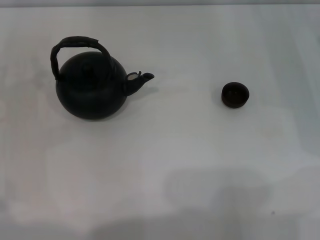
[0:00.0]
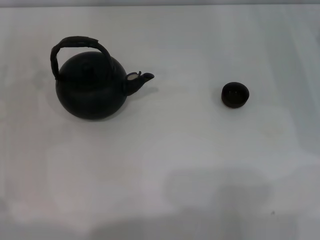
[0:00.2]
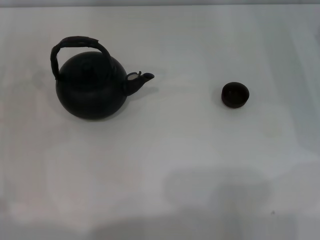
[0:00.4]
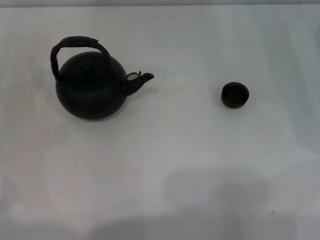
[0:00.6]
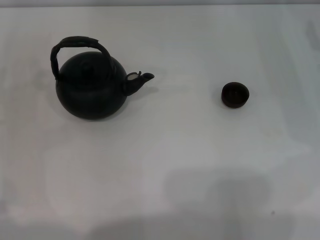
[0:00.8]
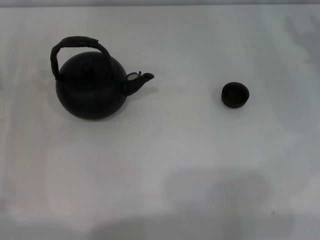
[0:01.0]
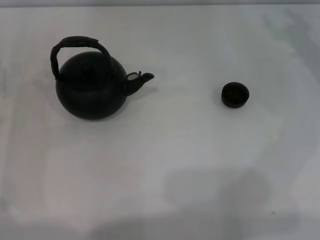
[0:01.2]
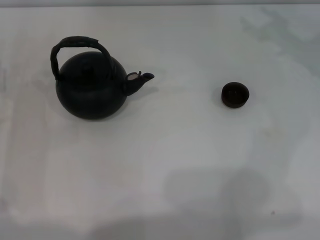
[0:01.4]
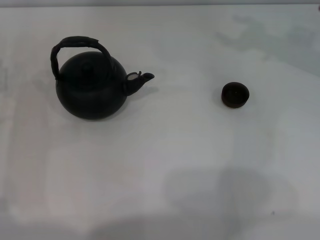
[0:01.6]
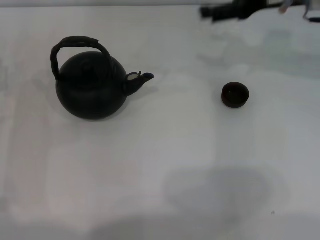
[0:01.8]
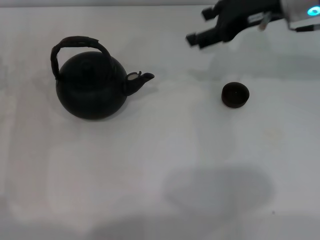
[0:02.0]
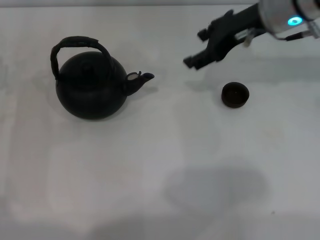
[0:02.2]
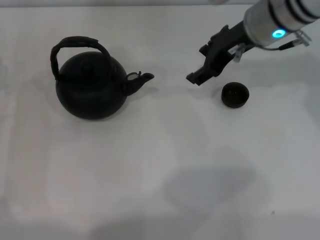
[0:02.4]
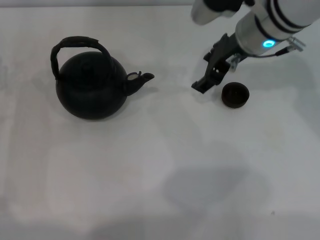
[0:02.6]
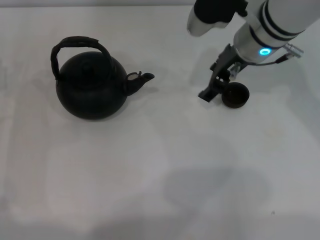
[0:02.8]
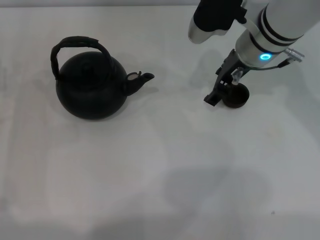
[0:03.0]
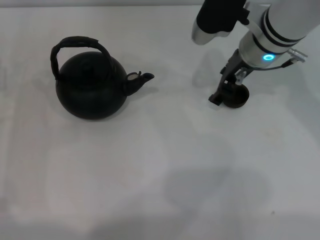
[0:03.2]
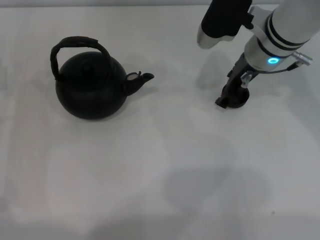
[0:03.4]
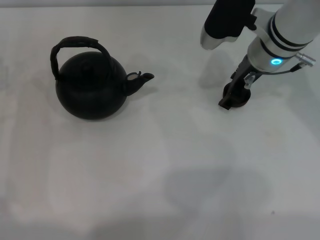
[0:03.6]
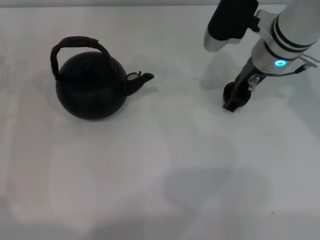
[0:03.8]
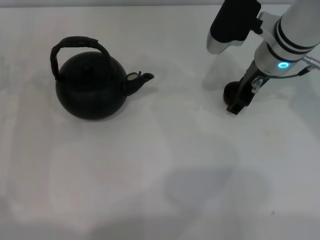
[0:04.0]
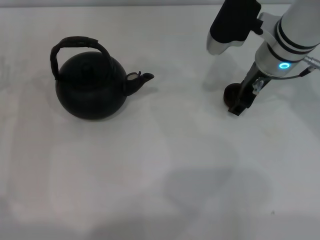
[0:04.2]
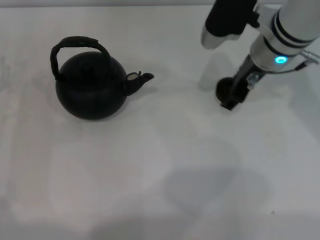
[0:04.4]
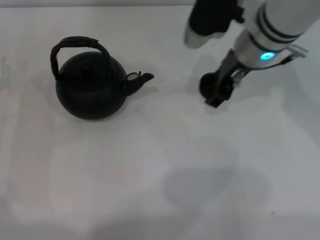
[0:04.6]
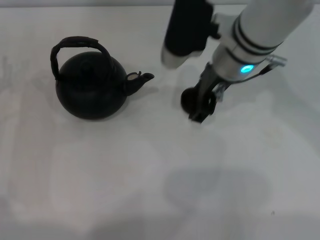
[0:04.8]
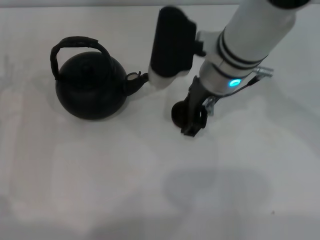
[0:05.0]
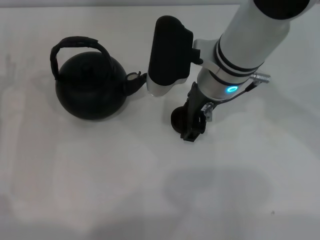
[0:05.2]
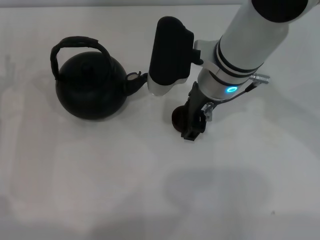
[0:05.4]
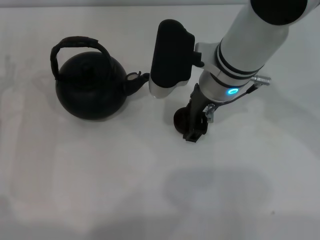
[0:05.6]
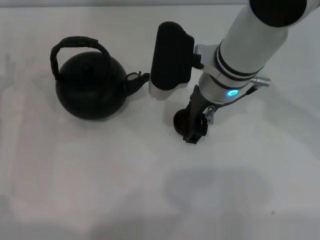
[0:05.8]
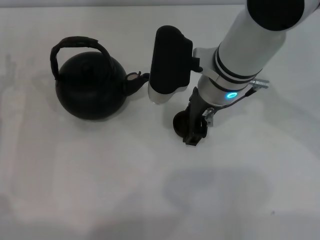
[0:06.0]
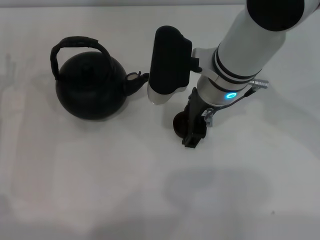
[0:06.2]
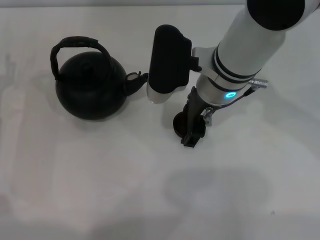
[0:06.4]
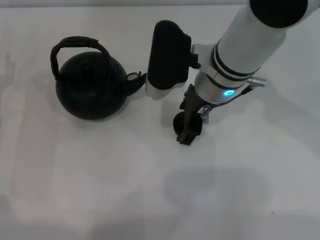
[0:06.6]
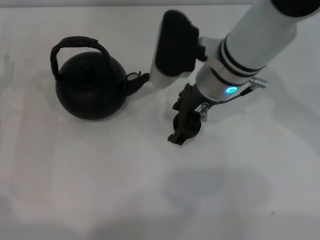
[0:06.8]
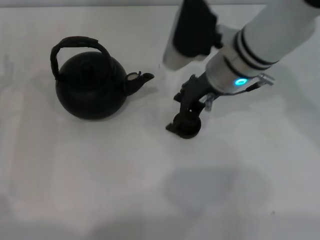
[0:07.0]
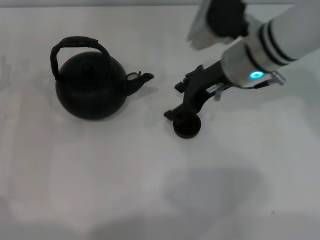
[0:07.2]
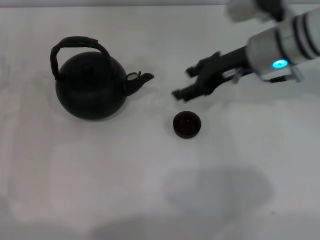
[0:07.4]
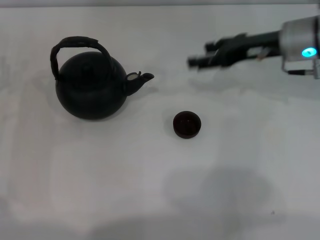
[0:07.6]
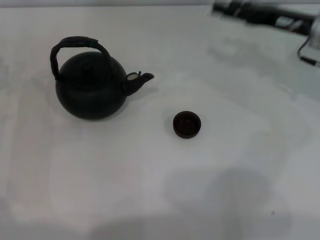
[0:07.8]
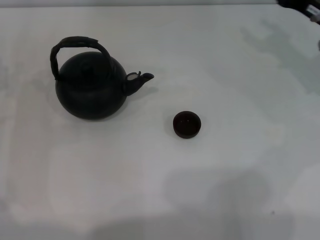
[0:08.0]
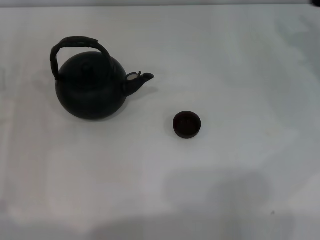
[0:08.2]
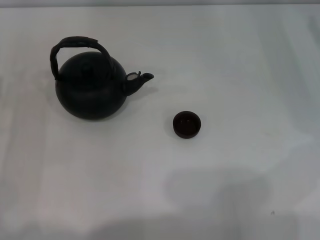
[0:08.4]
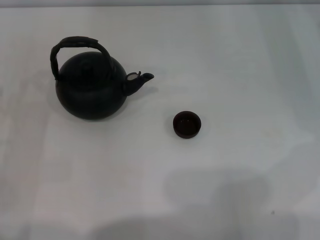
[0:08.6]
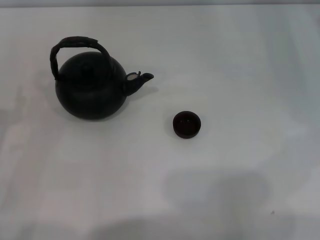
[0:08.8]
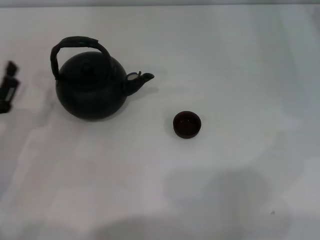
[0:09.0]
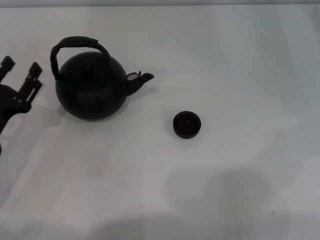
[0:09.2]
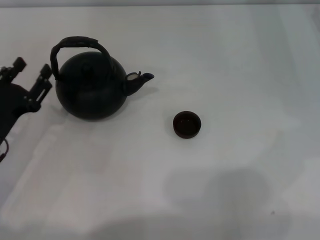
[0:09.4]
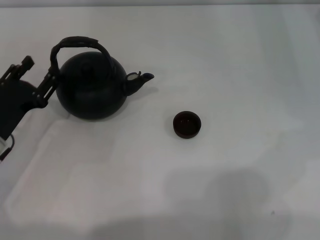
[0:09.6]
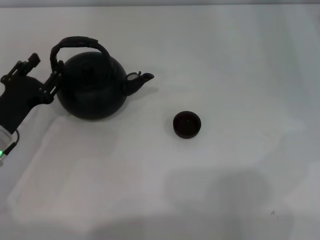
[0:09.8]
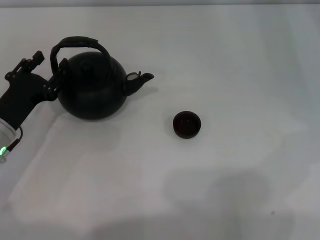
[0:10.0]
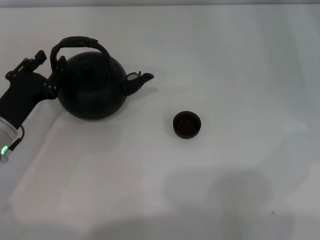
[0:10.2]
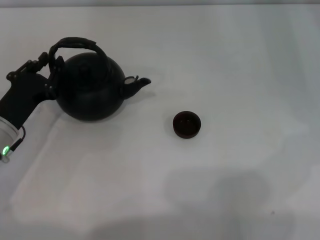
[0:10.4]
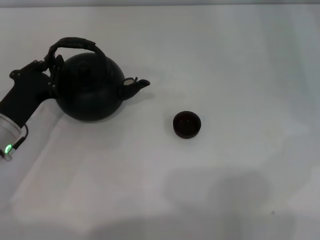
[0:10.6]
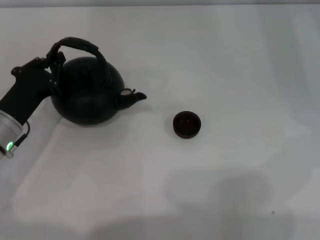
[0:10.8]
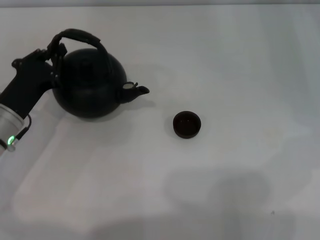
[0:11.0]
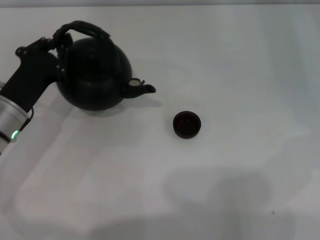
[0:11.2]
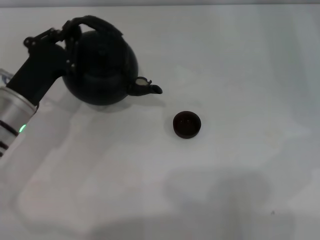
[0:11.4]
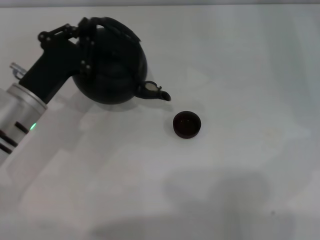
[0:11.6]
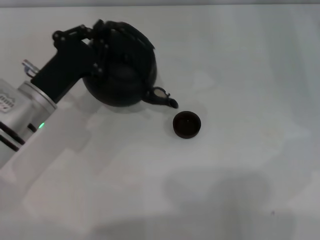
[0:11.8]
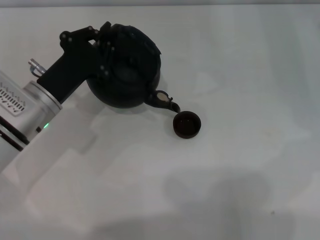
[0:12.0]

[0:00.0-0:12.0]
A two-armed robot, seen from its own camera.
Task of the whole recording: Grasp the handle of the teapot with one hand and pour tea into the teacup.
Step, 0.0 to 4.4 s: Pick up the teacup with the right gripper.
Step, 4.6 to 7.2 s: Place the teacup in the center of view with the right gripper.
Step, 7.4 to 11.2 s: Pick up the teapot with the left gripper.
1.6 to 3.0 s: The right gripper is displaced to the left by about 10 cm.
3.0 to 4.4 s: The grippers make only small movements.
4.4 to 6.0 s: The right gripper moves to the left, some 5 cm.
6.0 to 7.6 s: The right gripper heads to the right, covering about 15 cm.
7.6 to 9.0 s: The left gripper moves backward, some 5 cm. Meanwhile the right gripper is displaced to the right by some 15 cm.
9.0 to 10.4 s: The left gripper is displaced forward by approximately 5 cm.
10.4 to 12.0 s: The left gripper travels to the right by approximately 5 cm, and closes up.

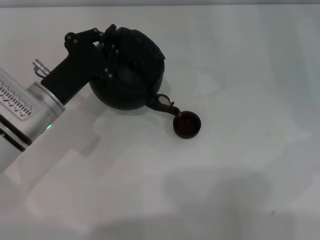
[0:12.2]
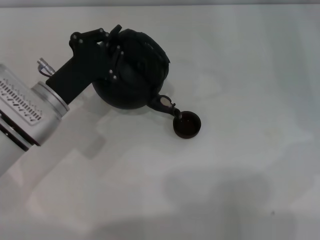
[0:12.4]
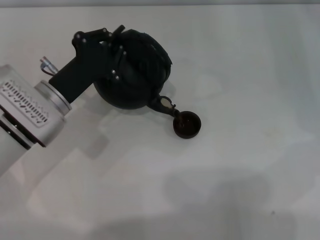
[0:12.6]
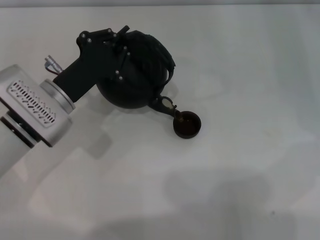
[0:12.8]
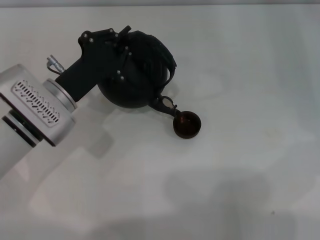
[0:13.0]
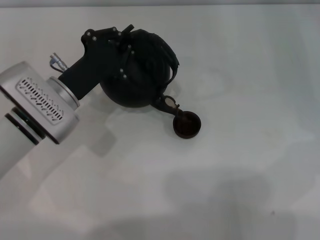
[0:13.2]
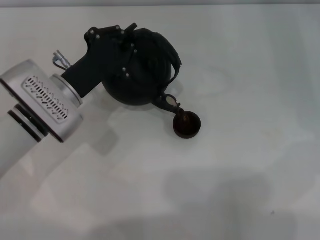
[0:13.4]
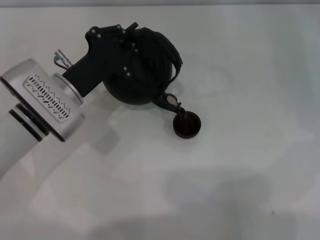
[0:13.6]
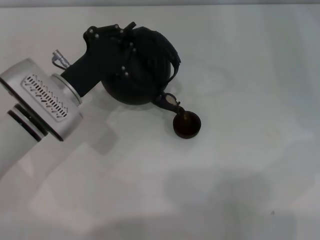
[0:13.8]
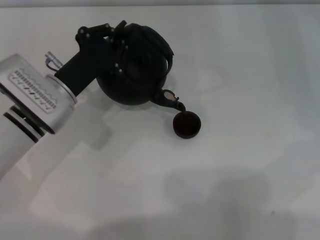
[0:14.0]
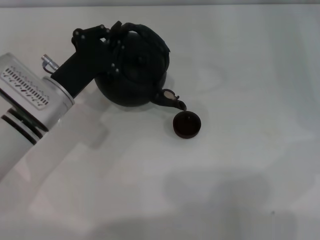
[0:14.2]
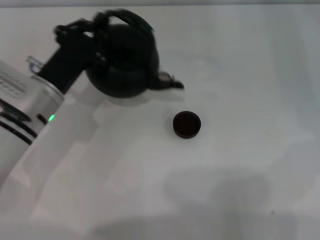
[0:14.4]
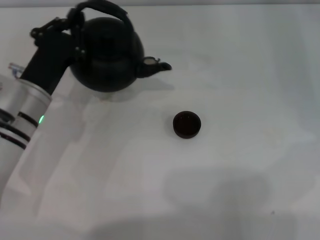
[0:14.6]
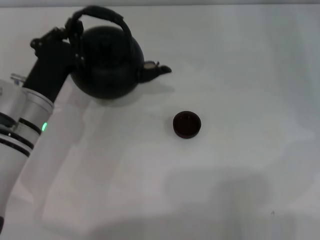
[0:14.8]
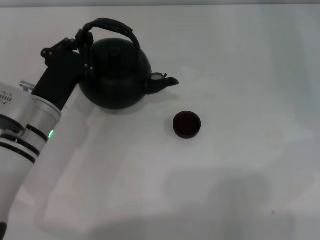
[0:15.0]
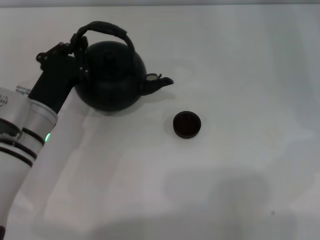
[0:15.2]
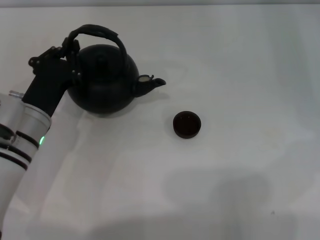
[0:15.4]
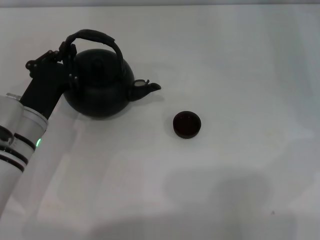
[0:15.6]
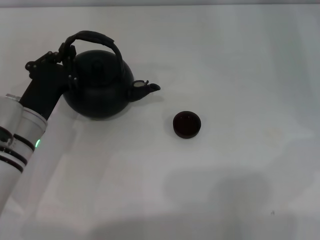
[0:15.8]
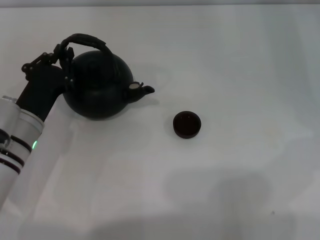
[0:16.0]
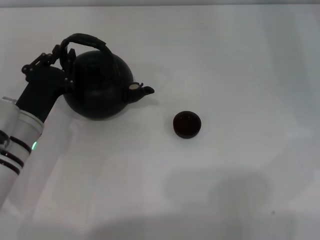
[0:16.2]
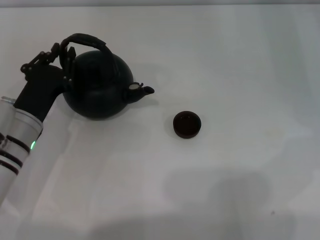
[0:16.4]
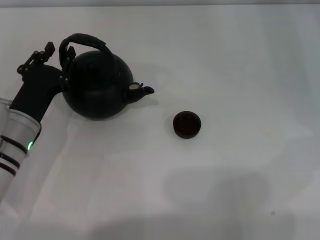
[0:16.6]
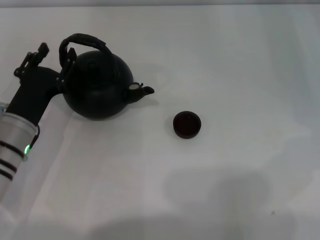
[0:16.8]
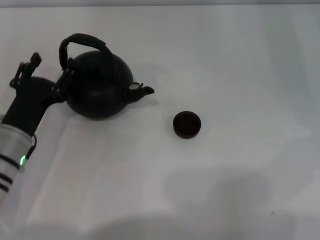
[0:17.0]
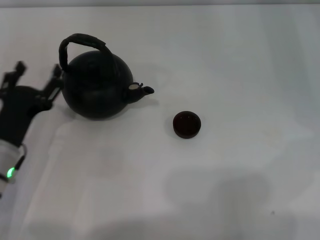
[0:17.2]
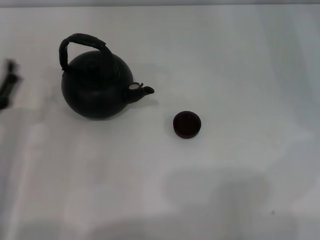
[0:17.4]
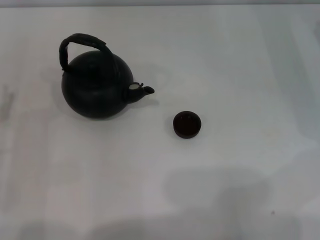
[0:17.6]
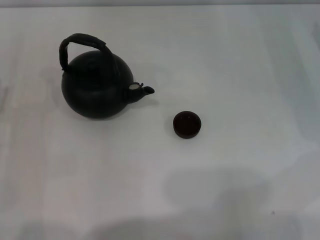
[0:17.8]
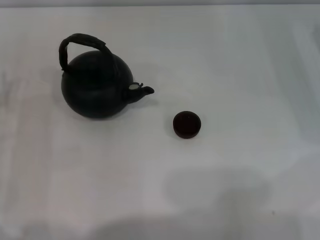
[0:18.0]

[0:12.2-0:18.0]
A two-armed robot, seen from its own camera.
Task of the whole recording: Grasp the handle of the teapot with one hand and pour tea into the teacup.
Step, 12.2 to 14.2 s: Pour tea into the teacup with the left gripper.
Step, 14.4 to 17.0 s: Put down the teapot with the left gripper.
12.2 to 13.6 s: The grippers stay close to where they were, moving slightly.
15.0 to 16.6 s: The grippers stay close to where they were, moving slightly.
16.6 to 18.0 s: The left gripper is displaced to the left by approximately 10 cm, and opens.

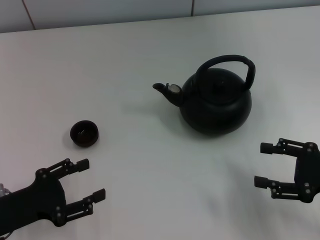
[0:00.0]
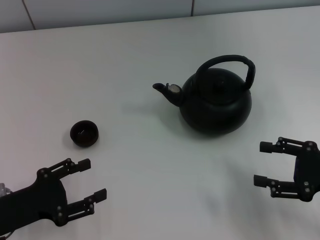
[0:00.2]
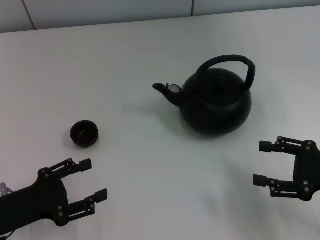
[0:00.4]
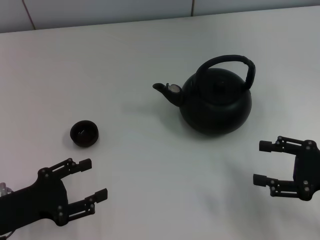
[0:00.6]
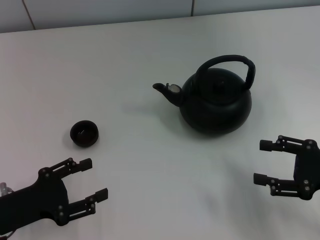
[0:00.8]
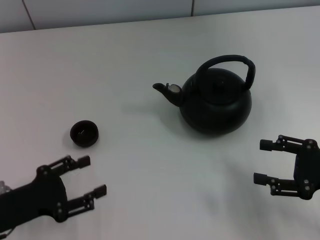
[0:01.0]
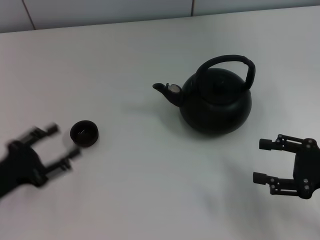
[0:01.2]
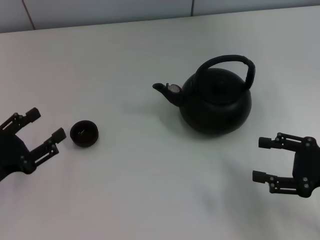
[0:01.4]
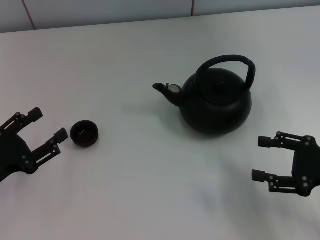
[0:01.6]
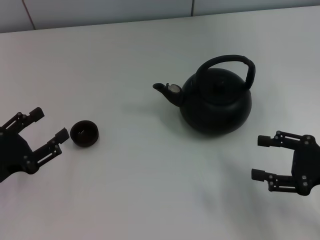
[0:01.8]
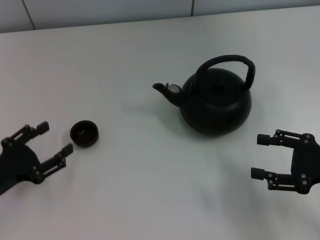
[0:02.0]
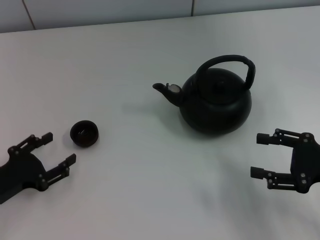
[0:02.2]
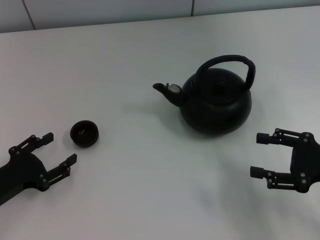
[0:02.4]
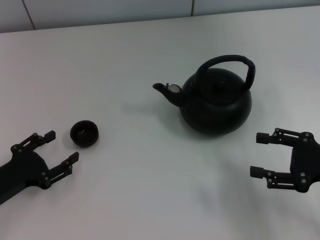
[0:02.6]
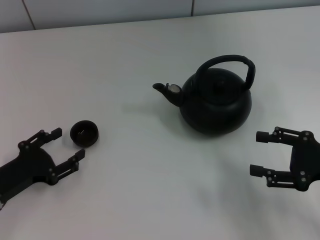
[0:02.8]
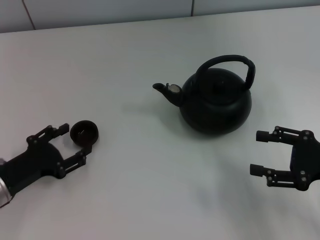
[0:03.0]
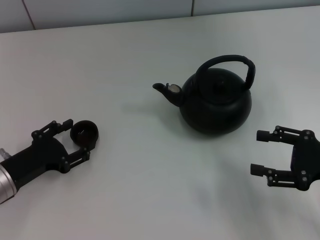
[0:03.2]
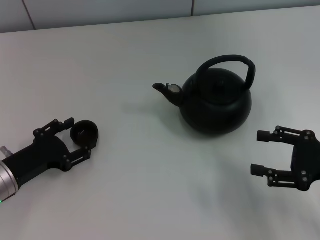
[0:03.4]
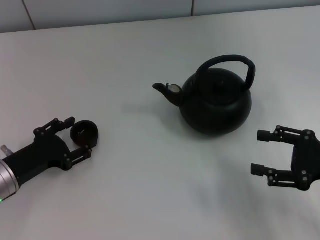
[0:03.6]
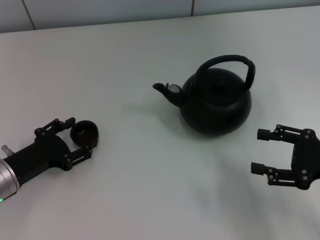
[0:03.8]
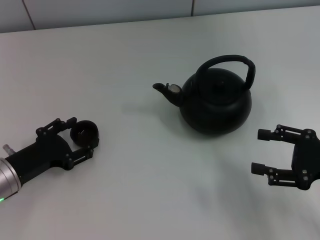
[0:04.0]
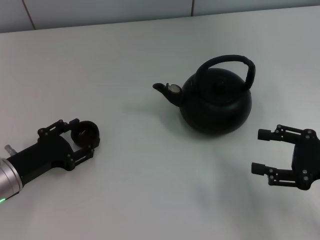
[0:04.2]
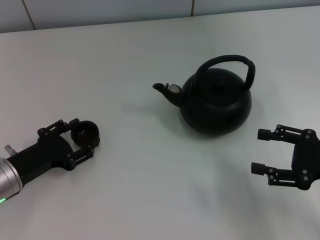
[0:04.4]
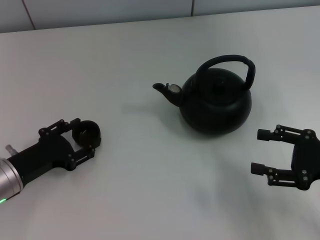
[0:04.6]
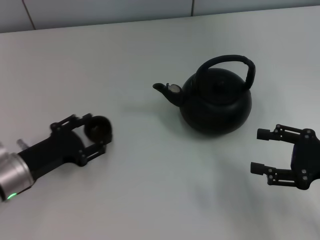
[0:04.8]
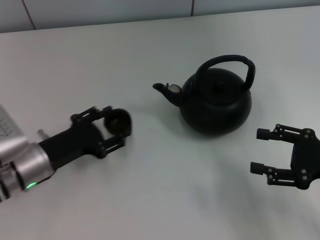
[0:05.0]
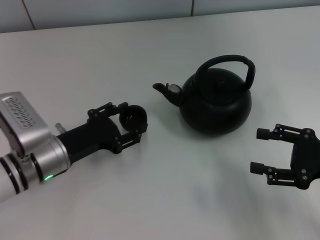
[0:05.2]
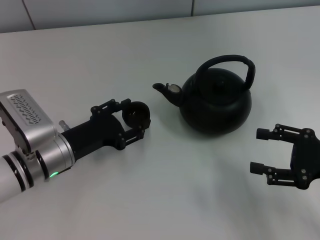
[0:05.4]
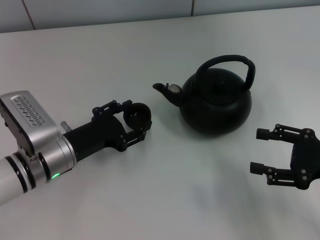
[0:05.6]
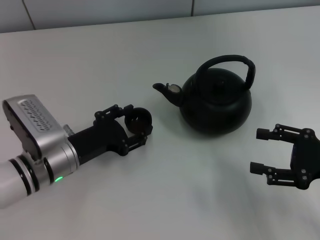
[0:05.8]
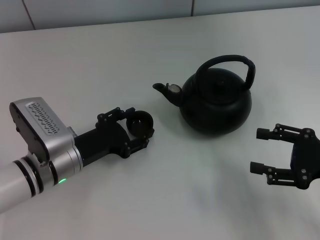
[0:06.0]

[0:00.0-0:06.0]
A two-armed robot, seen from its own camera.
Task of the whole recording: Grasp the handle of the teapot with one hand and pour tea into the teacup.
Step, 0.0 to 4.6 s: Pick up the teacup with the left gripper.
1.6 to 3.0 s: The grippers make only small movements.
3.0 to 4.4 s: The grippers move only a little.
4.4 to 6.0 s: The left gripper heads to the right, covering roughly 10 cm.
